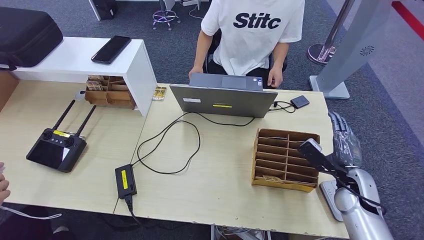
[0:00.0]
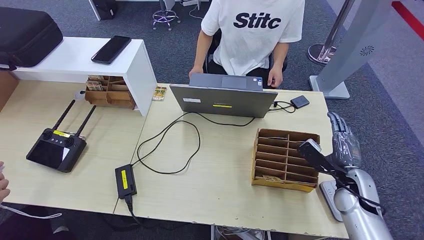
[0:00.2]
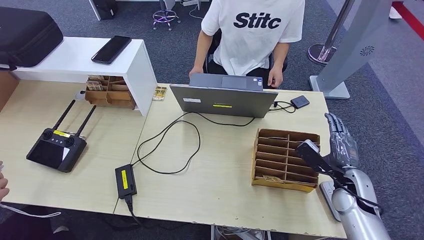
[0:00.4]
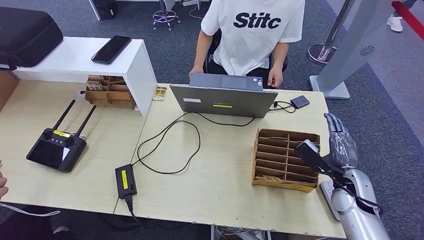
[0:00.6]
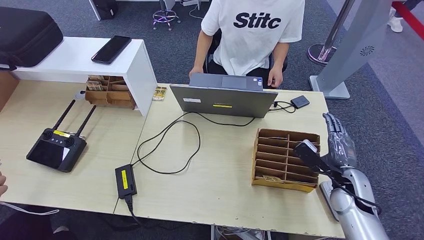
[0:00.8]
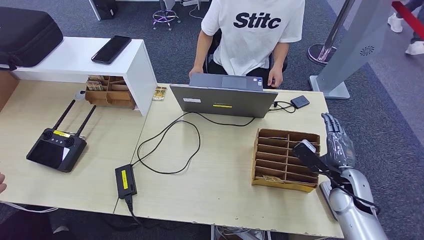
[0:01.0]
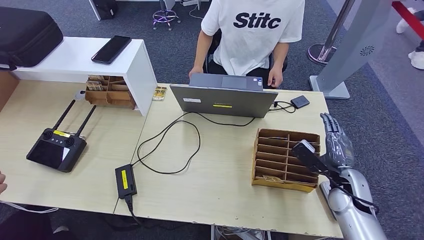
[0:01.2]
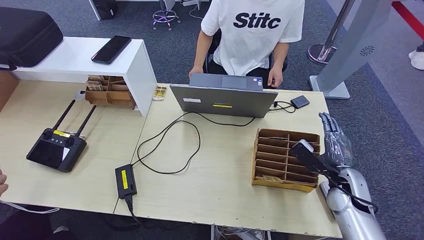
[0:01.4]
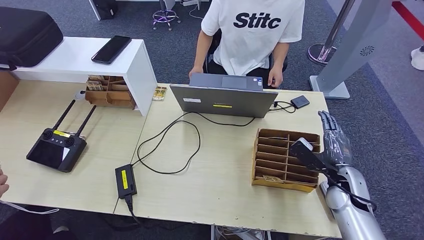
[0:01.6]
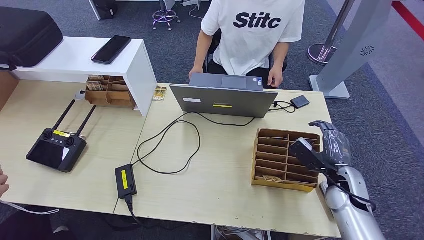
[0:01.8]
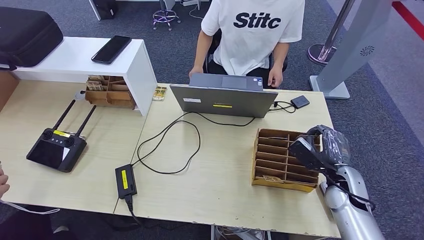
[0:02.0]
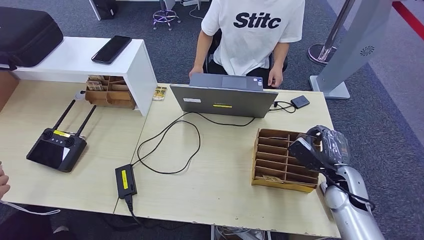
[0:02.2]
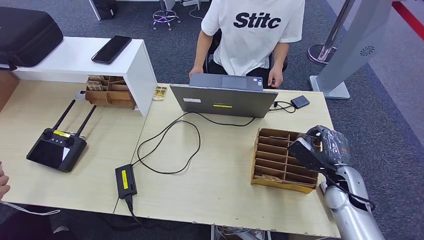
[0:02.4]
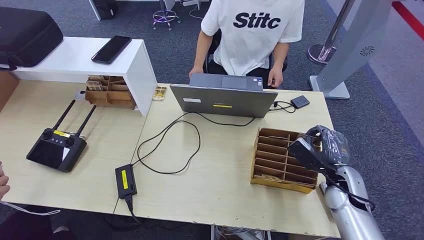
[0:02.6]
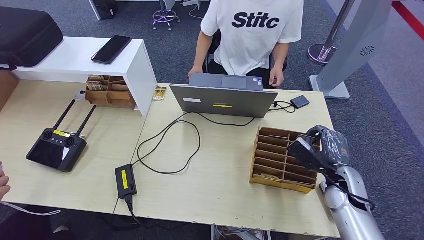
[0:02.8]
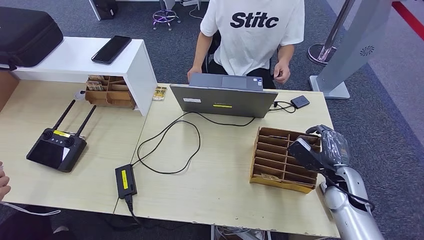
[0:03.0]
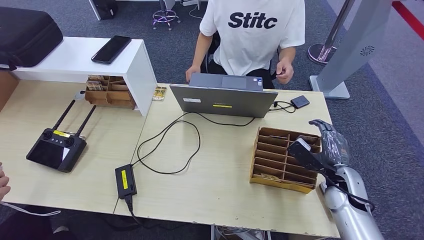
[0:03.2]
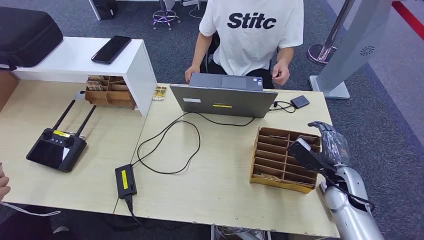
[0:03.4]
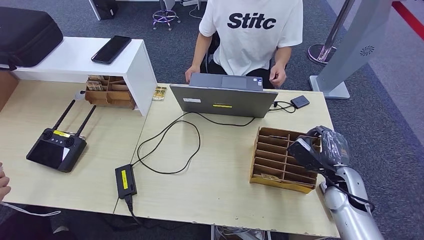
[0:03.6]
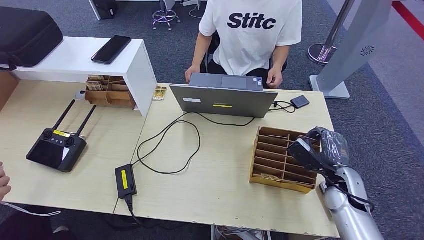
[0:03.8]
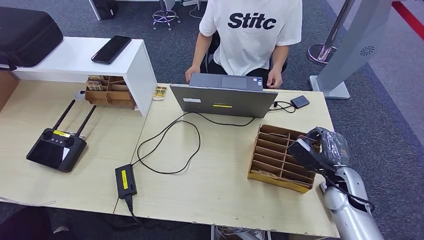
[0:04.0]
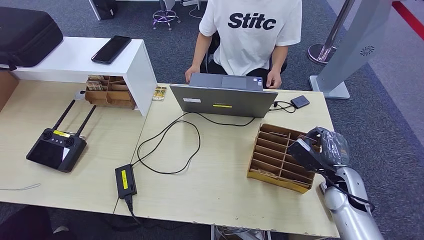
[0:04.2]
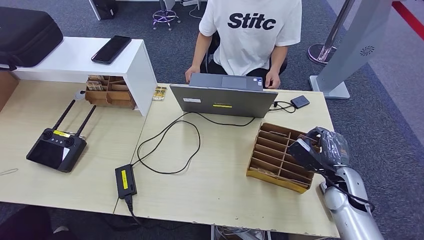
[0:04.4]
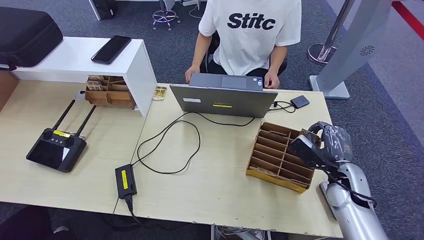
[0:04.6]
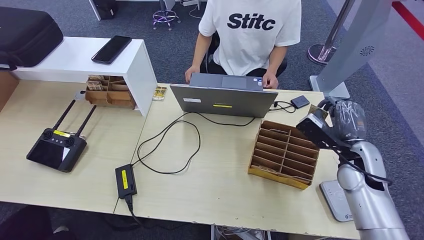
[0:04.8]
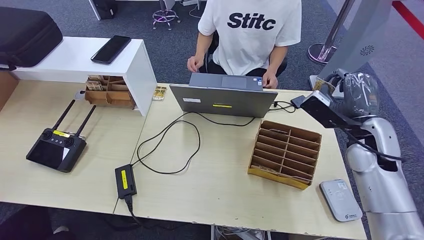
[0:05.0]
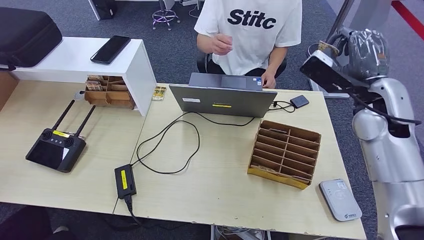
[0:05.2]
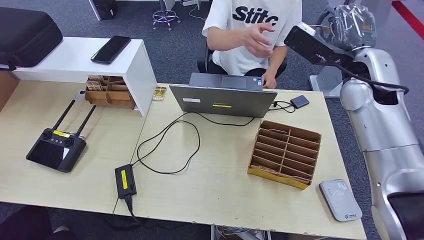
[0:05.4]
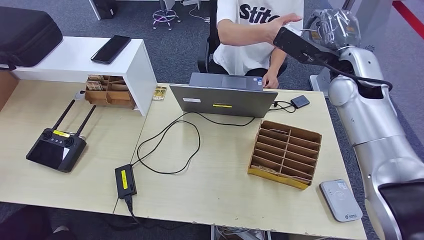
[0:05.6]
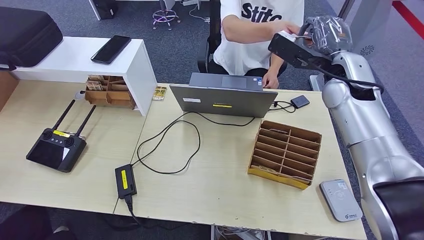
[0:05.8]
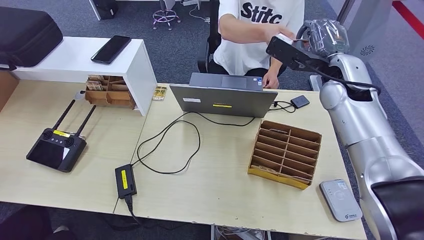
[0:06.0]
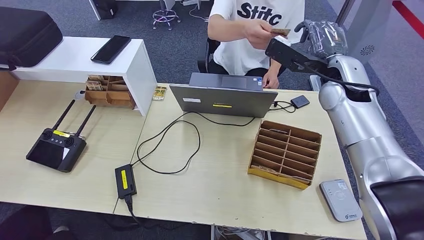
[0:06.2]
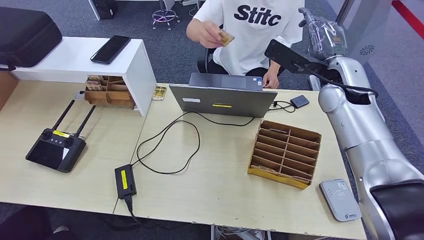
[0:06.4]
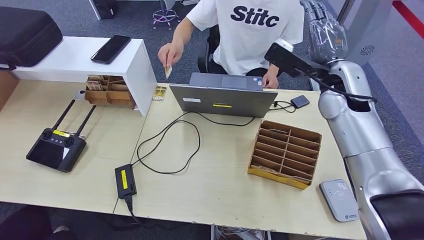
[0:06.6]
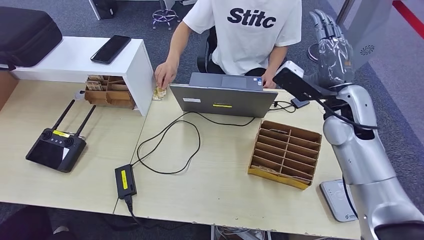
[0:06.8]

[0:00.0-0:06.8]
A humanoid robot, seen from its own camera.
Step, 0:01.6 to 0:04.8: Pick up the room key from the key card box.
Step, 0:05.2 to 0:06.8: Hand the room key to the person.
0:00.0 to 0:01.4: The hands stay close to where they were, moving slightly.
0:01.4 to 0:04.0: Both hands stay put.

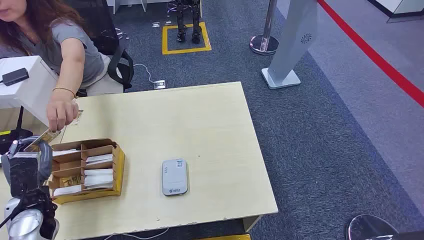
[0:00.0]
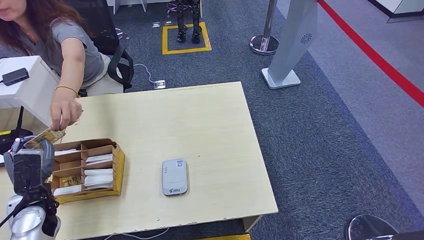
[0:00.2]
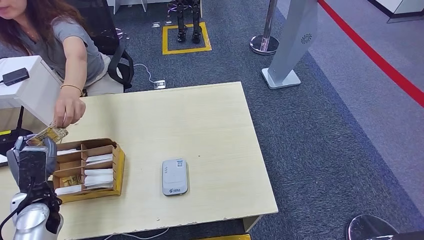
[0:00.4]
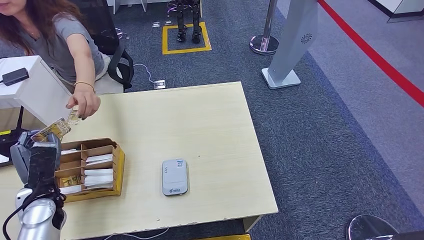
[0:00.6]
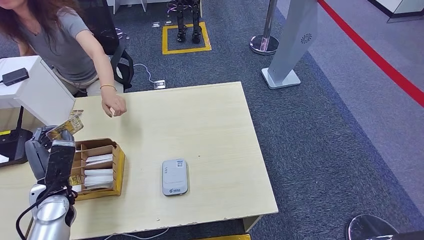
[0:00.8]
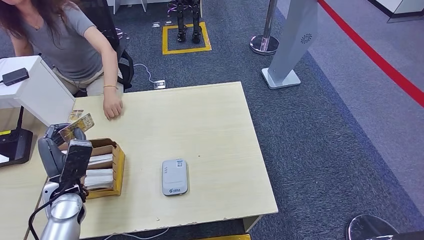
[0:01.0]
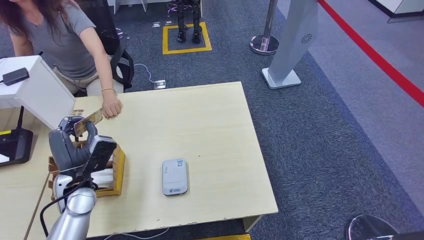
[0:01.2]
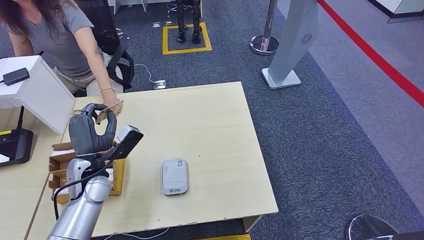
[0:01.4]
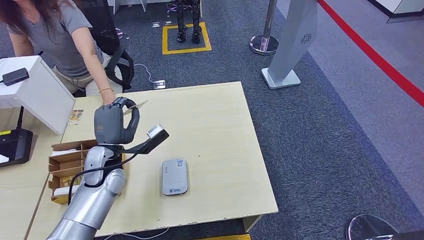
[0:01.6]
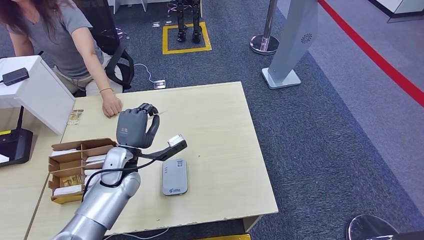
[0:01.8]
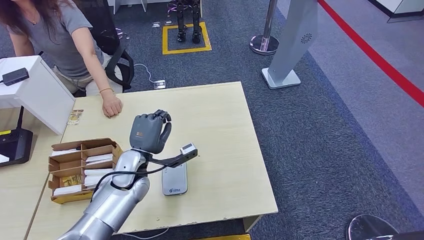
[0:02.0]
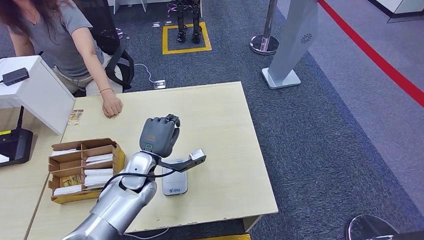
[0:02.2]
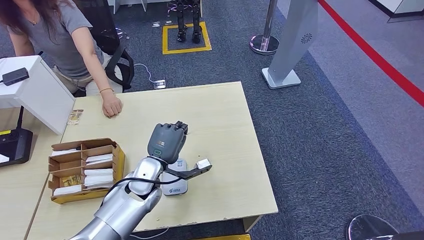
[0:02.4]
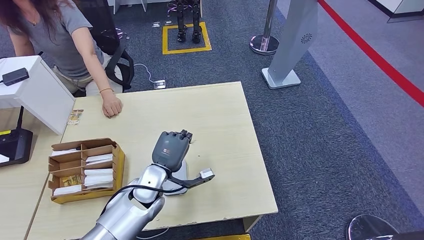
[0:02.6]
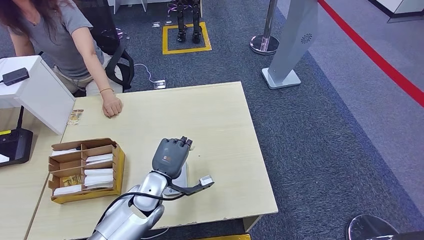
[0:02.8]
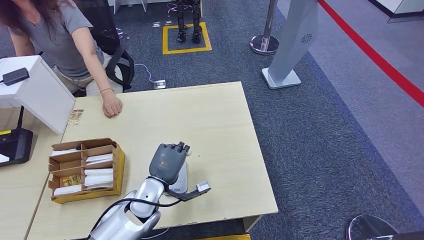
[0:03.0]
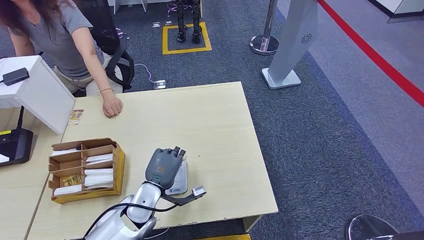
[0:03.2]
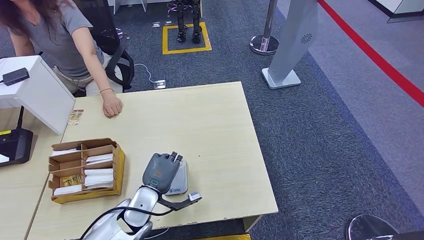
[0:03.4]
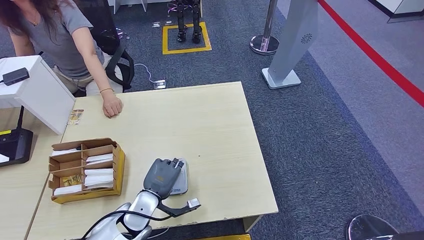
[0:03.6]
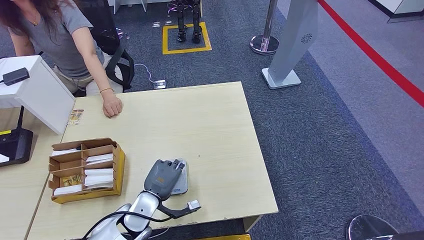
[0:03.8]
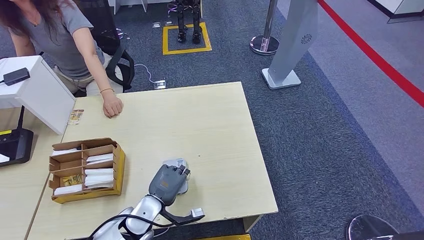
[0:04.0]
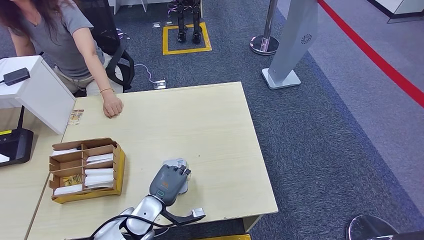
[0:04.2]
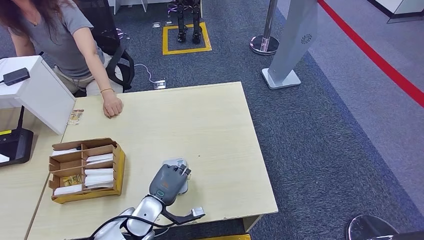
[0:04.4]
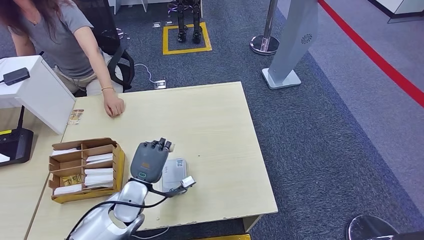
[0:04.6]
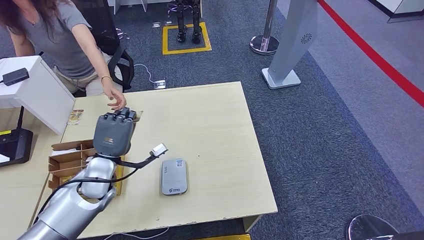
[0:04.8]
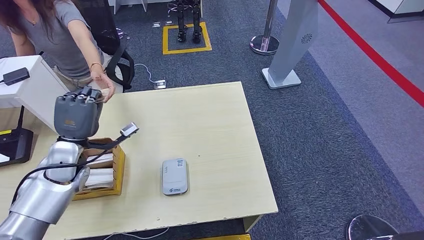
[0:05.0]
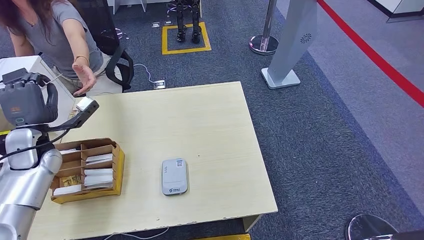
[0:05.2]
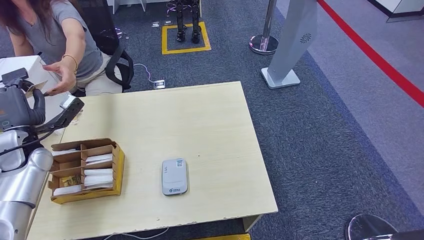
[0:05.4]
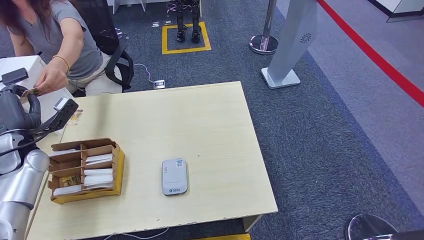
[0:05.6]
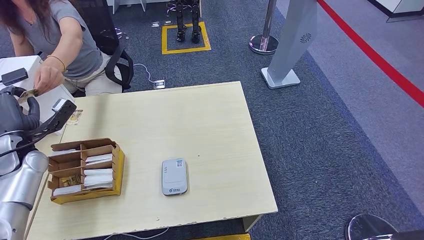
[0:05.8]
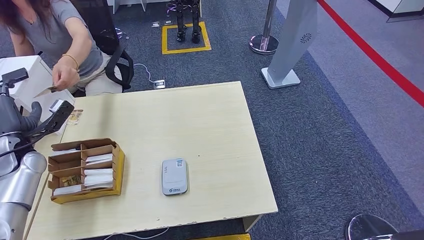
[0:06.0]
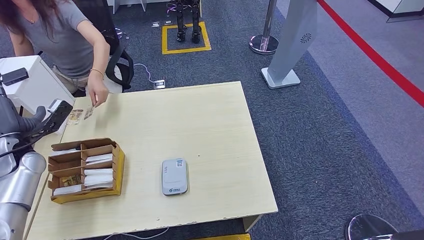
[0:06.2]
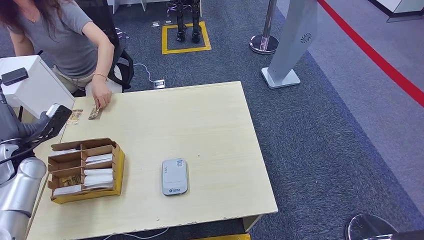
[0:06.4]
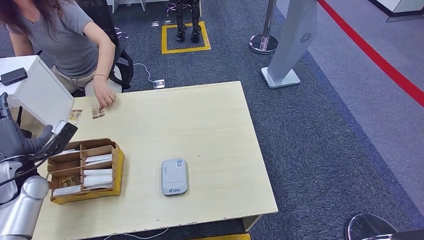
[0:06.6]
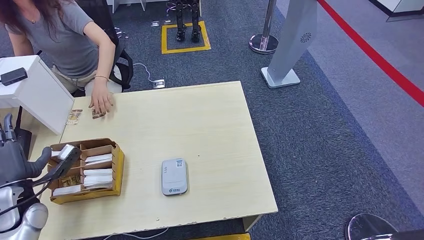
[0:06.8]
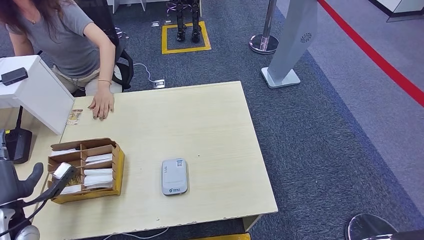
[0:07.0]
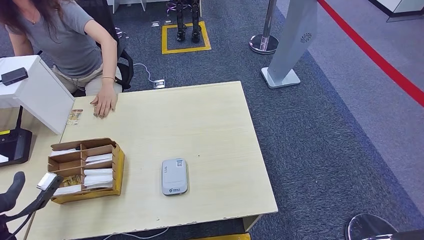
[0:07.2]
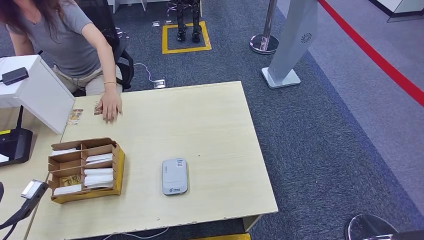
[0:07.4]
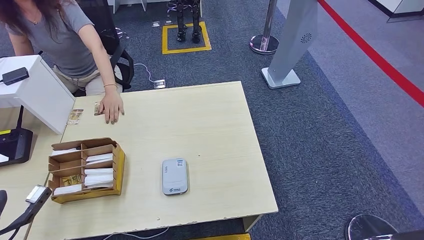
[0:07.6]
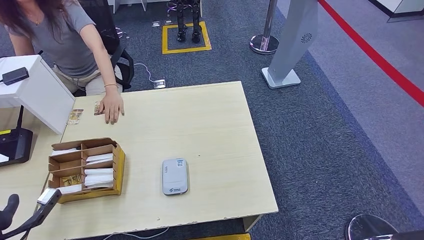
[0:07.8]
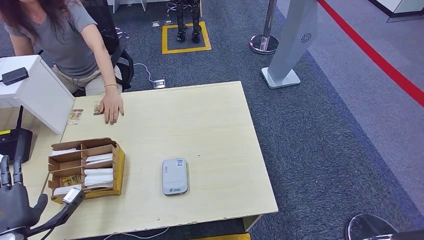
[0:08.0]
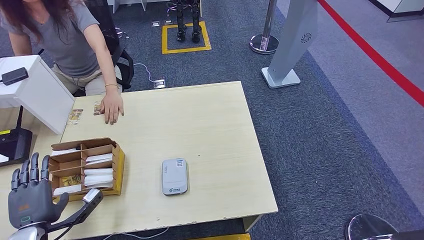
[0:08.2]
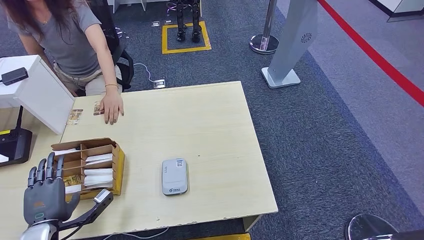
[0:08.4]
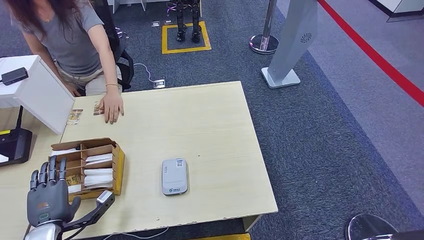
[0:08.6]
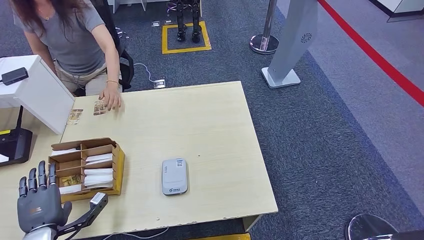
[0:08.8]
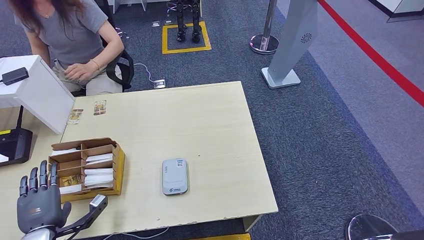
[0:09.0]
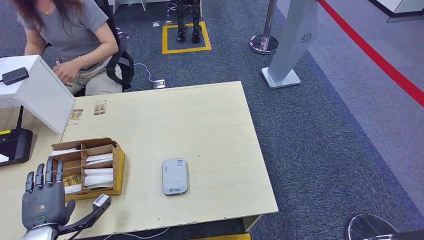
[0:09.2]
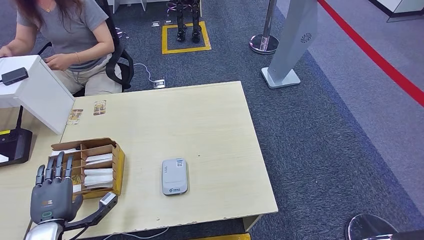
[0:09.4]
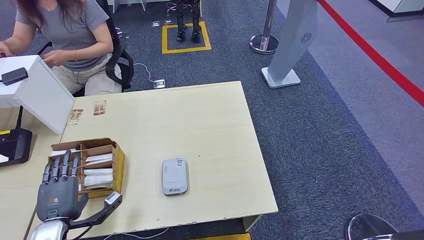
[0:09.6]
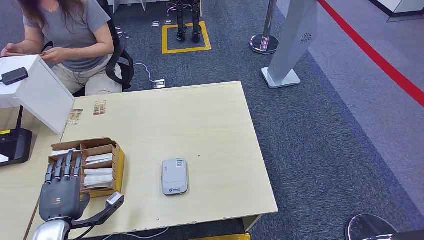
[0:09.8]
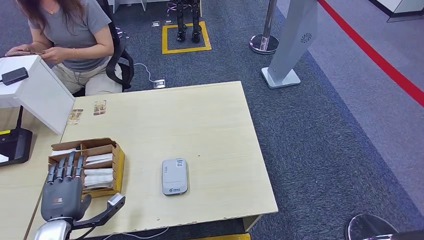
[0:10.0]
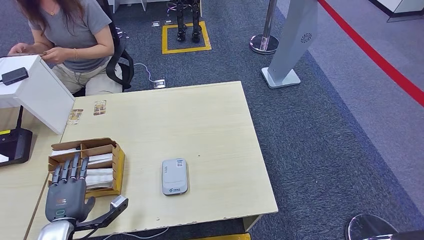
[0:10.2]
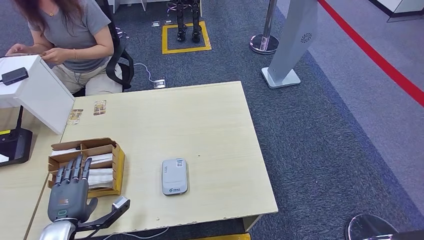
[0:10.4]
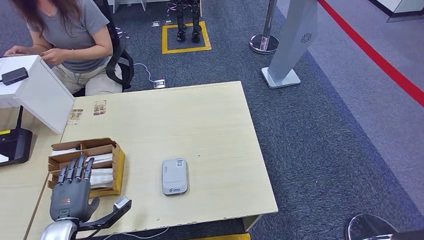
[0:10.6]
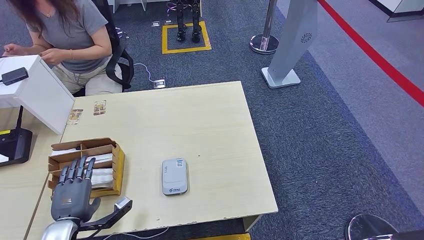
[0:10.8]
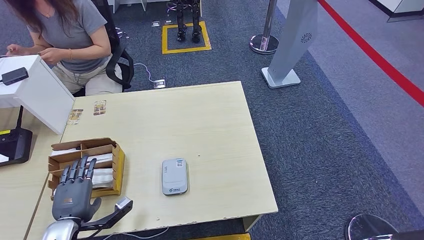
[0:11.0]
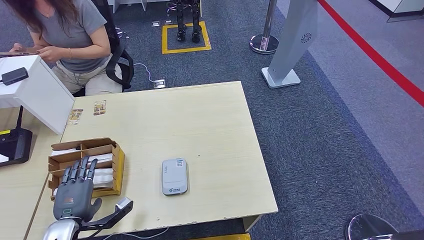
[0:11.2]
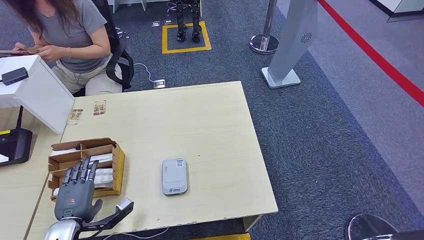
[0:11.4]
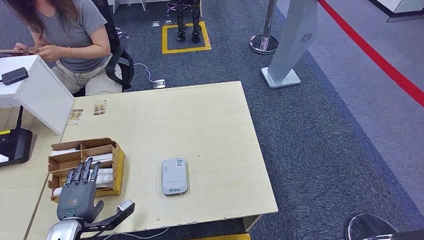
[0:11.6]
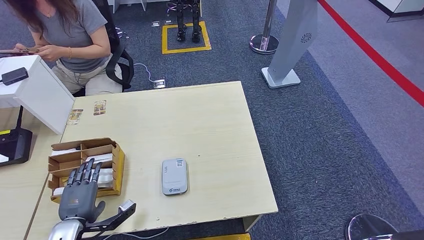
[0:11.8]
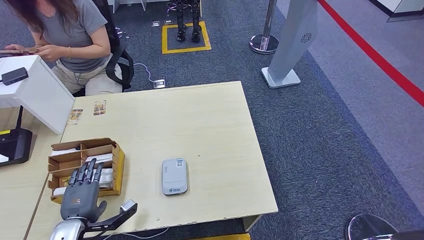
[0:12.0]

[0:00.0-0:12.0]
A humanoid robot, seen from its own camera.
Step, 0:00.0 to 0:01.0: Take the ID card from the person's hand.
Step, 0:01.2 to 0:03.8: Place the ID card on the card reader.
Step, 0:04.0 to 0:06.8: Hand the ID card to the person.
0:01.6 to 0:03.0: The left hand travels to the right, backward and downward by about 15 cm.
0:03.0 to 0:04.4: The left hand moves about 5 cm.
0:04.4 to 0:06.0: The left hand is displaced to the left, forward and upward by roughly 35 cm.
0:06.0 to 0:07.6: The left hand is displaced backward by some 20 cm.
0:07.6 to 0:09.0: The left hand heads to the right, covering about 10 cm.
0:09.0 to 0:12.0: The hands stay close to where they were, moving slightly.
